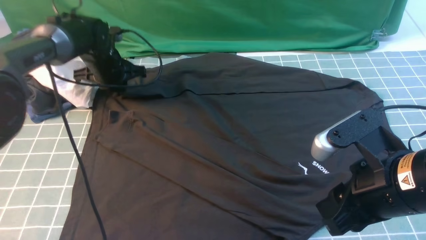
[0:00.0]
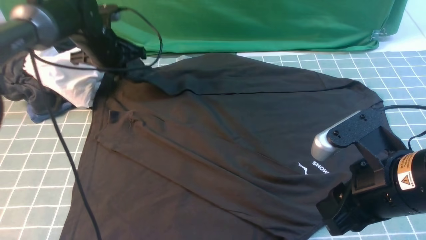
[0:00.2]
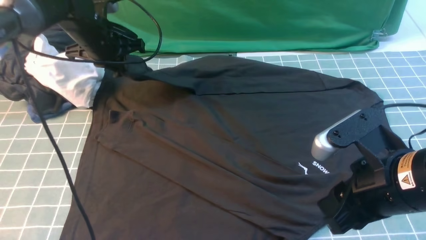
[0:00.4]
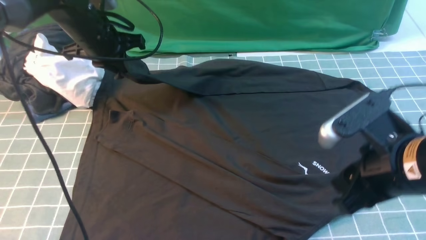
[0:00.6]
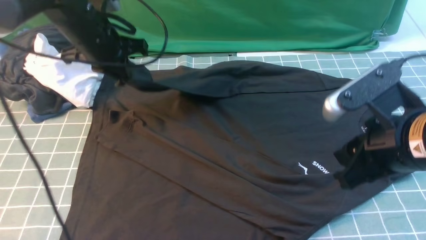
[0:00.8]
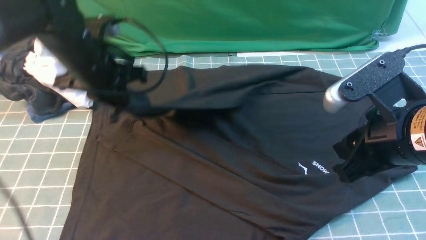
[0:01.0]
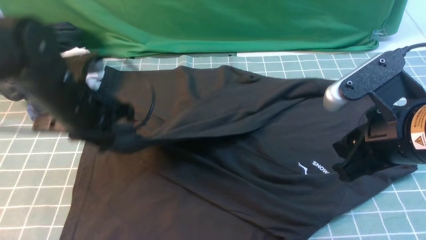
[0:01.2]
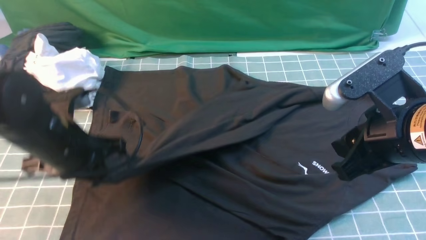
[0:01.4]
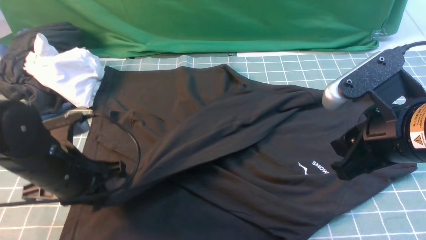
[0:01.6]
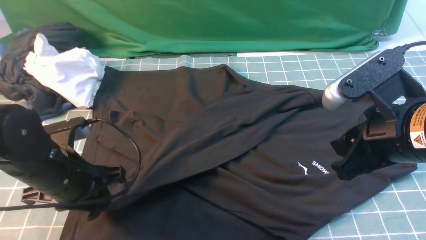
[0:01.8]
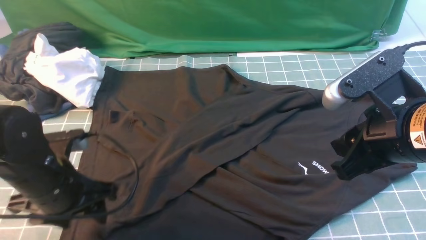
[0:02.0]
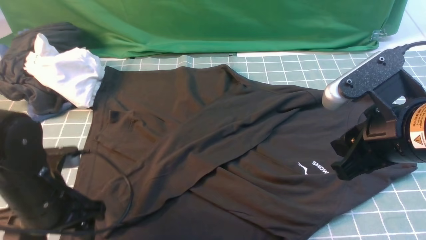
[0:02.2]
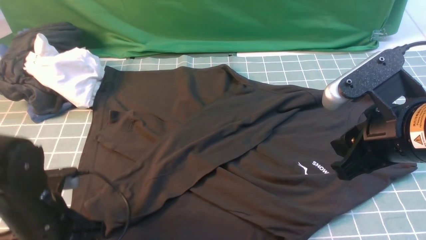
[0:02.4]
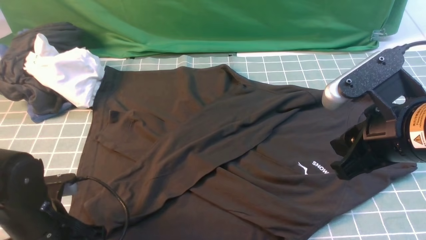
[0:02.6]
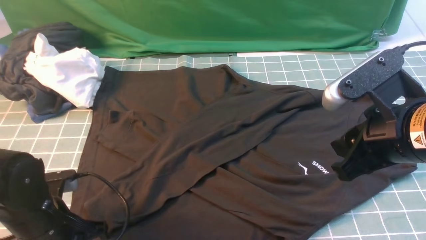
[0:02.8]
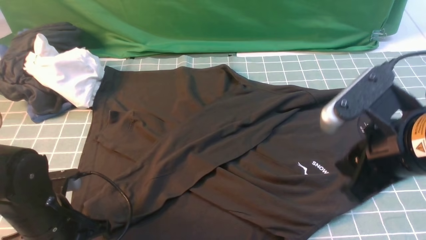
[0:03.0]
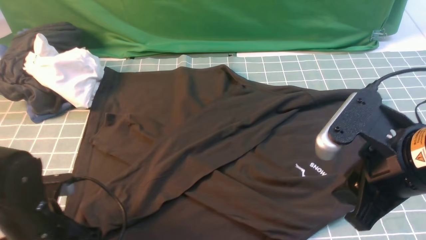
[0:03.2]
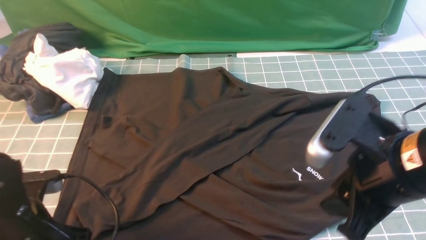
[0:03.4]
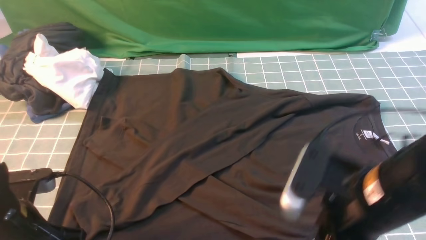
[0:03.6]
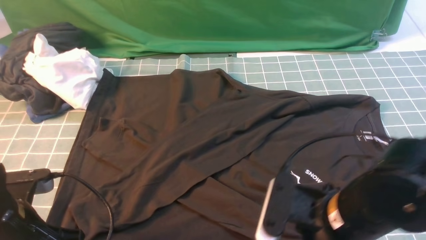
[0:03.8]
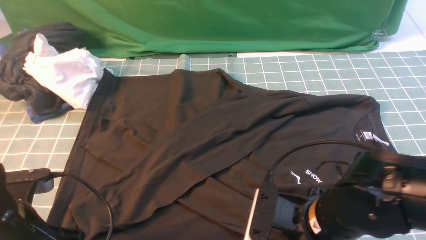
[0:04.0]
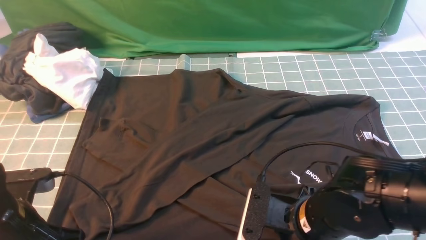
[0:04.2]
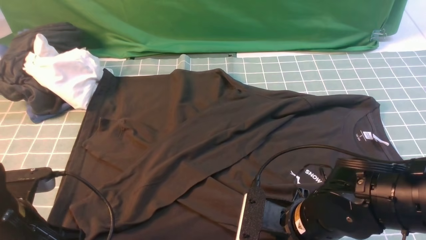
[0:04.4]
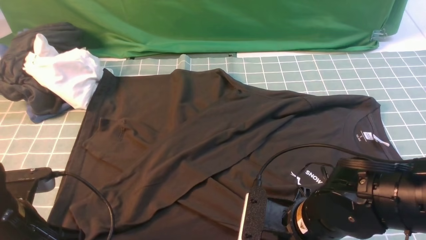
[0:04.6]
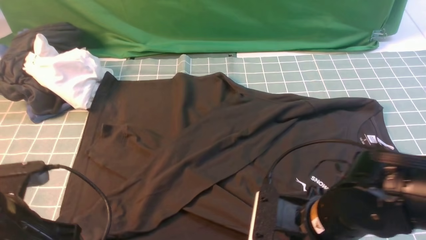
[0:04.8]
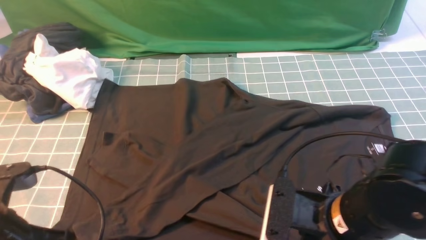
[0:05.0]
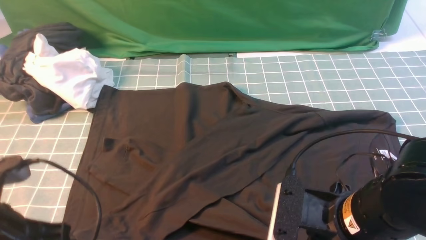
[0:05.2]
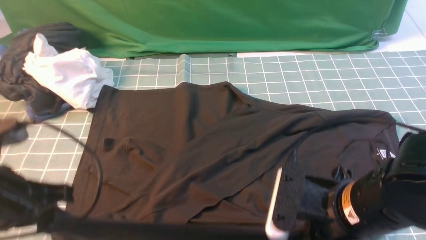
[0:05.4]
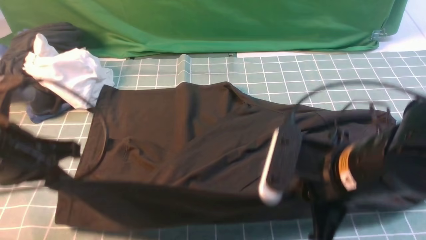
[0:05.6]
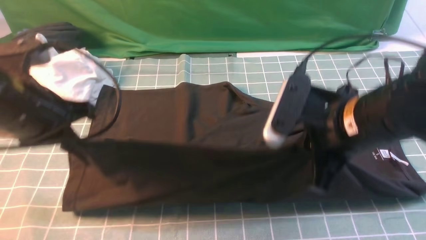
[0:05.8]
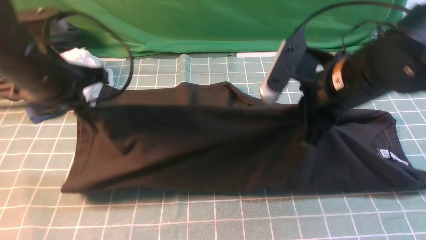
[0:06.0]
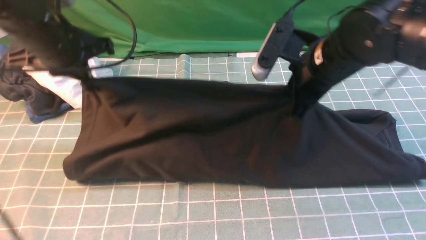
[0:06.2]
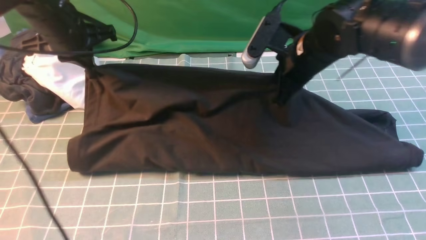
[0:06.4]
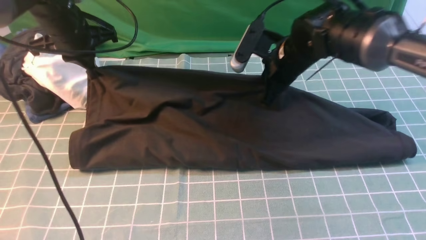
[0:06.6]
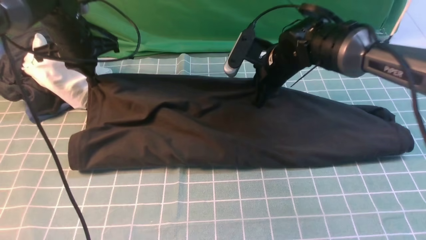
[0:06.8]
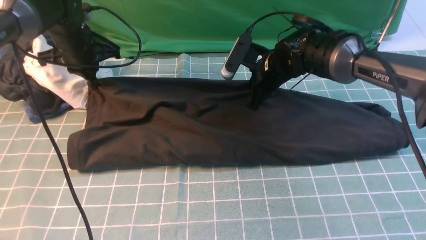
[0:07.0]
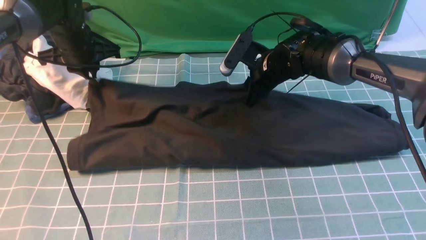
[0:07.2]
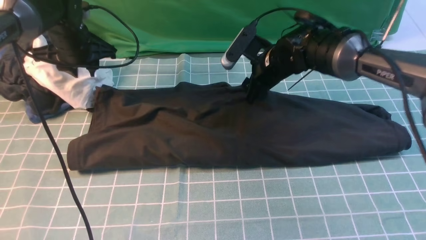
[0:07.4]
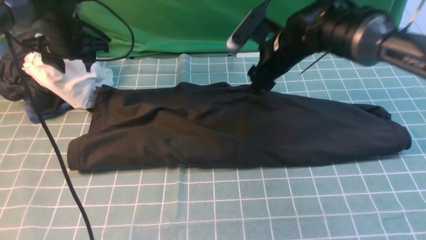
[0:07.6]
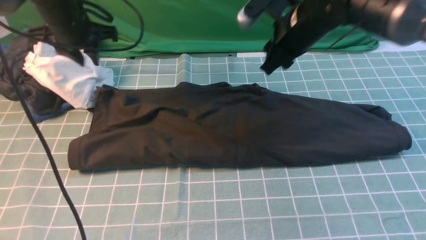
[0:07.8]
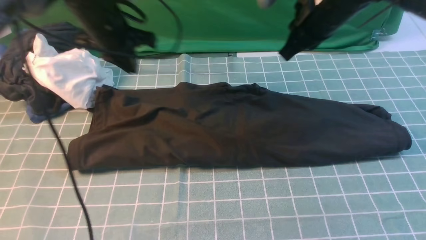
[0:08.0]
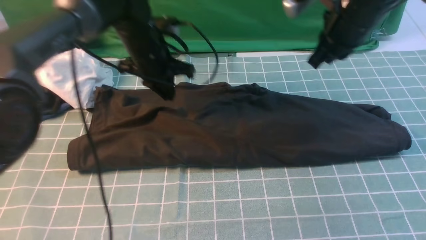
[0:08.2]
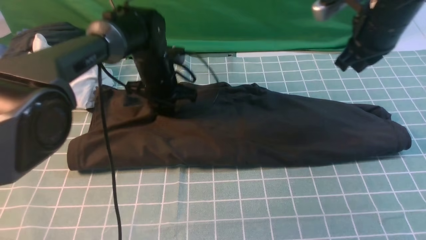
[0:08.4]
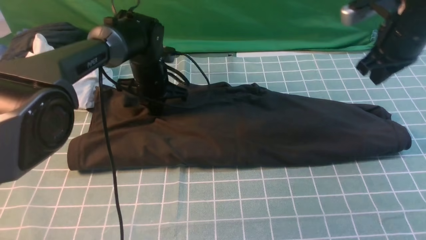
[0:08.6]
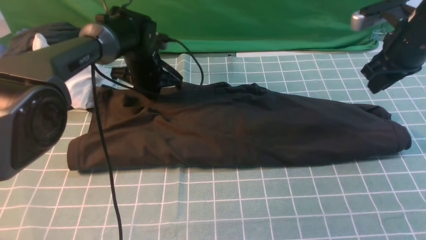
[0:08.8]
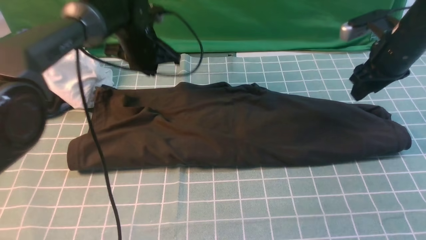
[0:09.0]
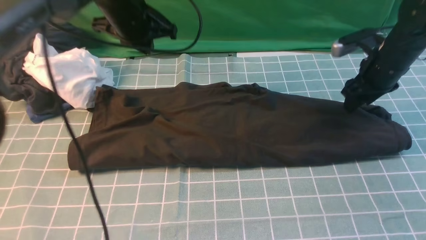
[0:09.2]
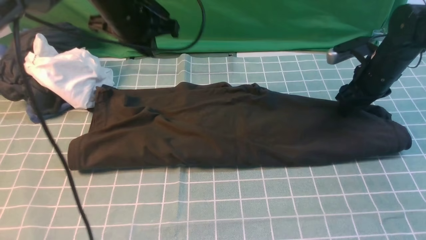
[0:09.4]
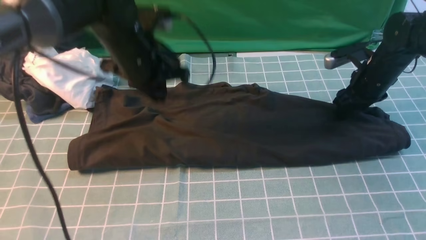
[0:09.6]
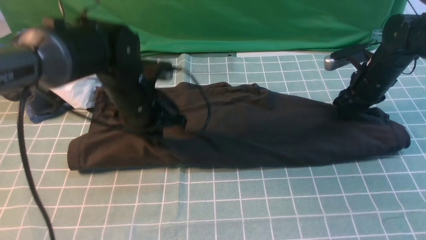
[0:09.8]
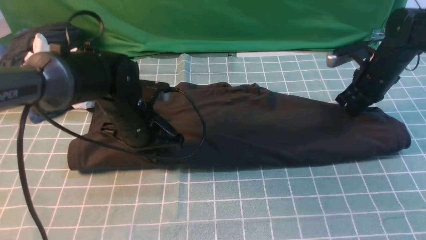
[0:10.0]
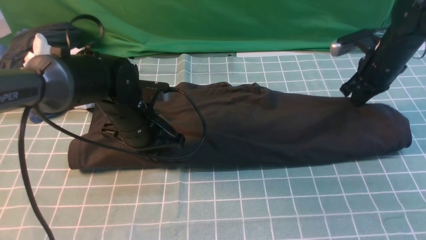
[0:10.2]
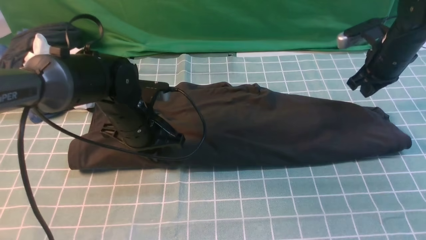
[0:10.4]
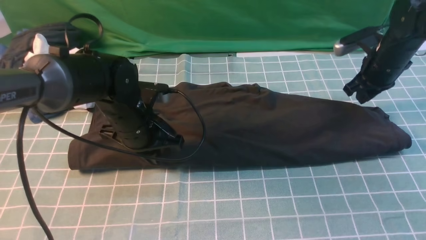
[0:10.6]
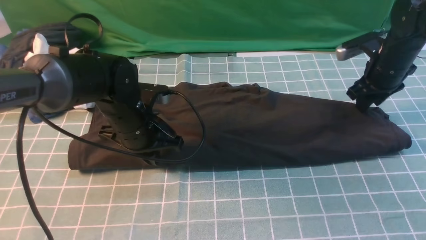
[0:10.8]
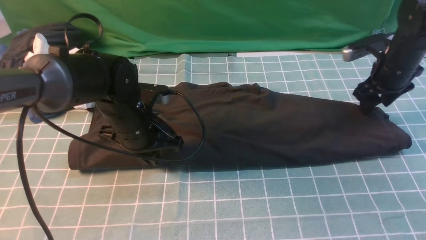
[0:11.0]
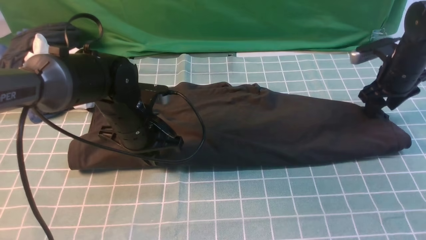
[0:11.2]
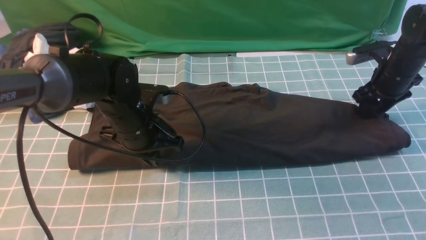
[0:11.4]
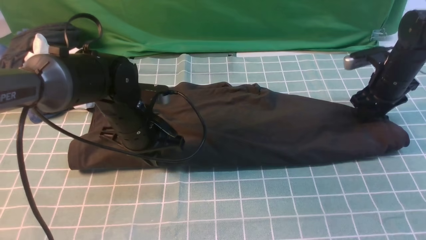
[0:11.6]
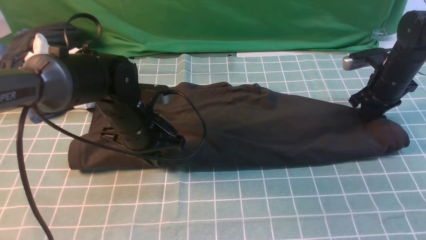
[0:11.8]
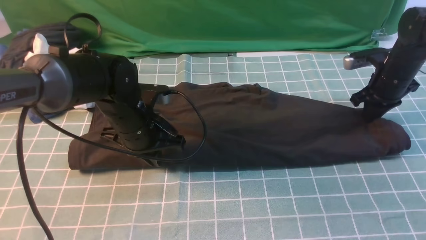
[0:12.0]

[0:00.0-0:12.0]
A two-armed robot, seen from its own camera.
Step, 0:00.0 to 0:02.4: use the left arm to drag and drop the cuff onto the cuff closest to the left arm.
Step, 0:02.6 to 0:04.6: use both arms simultaneously to clamp the lower edge of the clothing fabric.
Step, 0:04.8 to 0:07.2: use both arms to drag the lower edge of the fabric forward and fold it over the upper edge.
0:00.0 to 0:01.6: The left gripper shifts about 25 cm backward.
0:01.6 to 0:03.0: The left gripper heads backward, covering about 5 cm, and opens, then closes again.
0:03.0 to 0:04.4: The right gripper shifts approximately 15 cm downward and to the left; the left gripper moves some 5 cm.
0:04.4 to 0:06.0: The left gripper goes about 20 cm forward and upward. Meanwhile the right gripper heads upward and forward, covering approximately 20 cm, and closes.
0:06.0 to 0:07.6: The grippers both shift forward by some 15 cm. The right gripper opens up. The left gripper opens up.
0:07.6 to 0:09.0: The left gripper heads to the right, covering approximately 10 cm, and closes, while the right gripper heads to the right, covering roughly 15 cm, and closes, then reopens.
0:09.0 to 0:10.4: The right gripper closes up, while the left gripper shifts about 15 cm backward and downward.
0:10.4 to 0:12.0: The right gripper opens, then closes again.

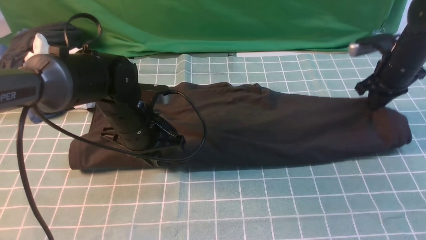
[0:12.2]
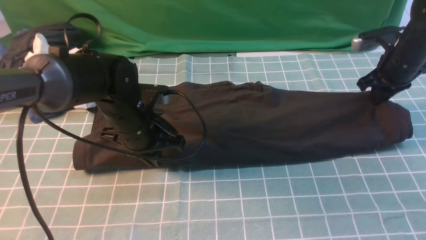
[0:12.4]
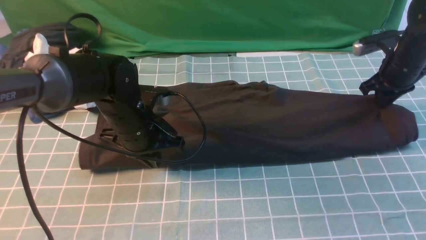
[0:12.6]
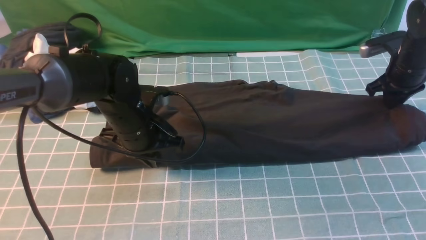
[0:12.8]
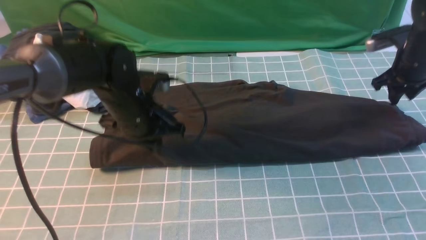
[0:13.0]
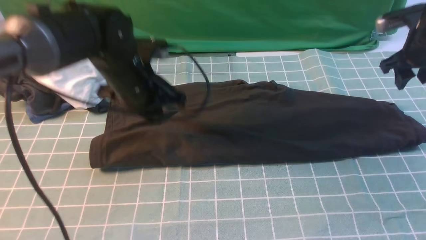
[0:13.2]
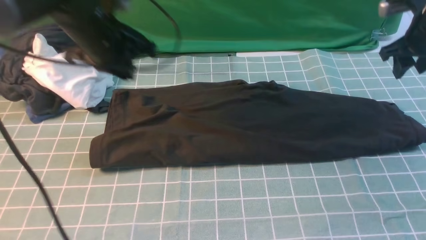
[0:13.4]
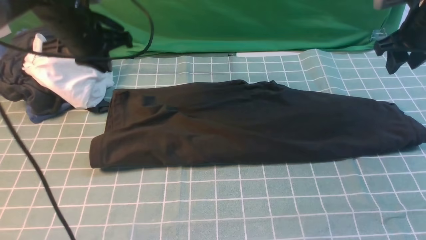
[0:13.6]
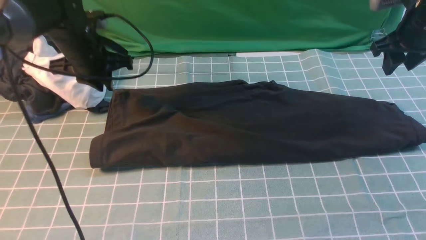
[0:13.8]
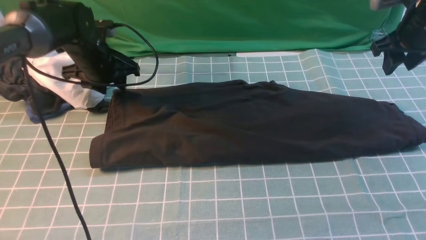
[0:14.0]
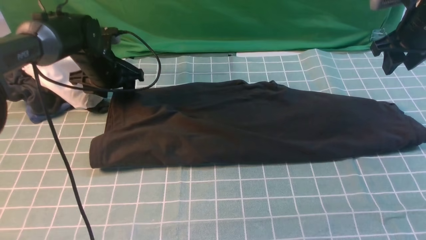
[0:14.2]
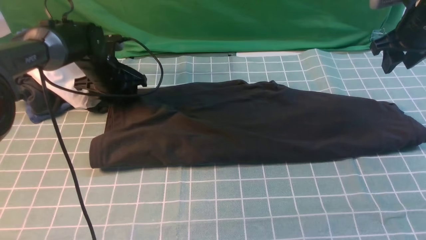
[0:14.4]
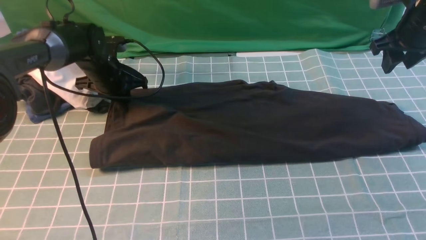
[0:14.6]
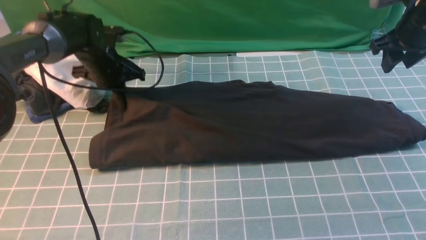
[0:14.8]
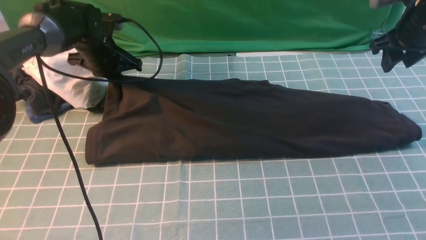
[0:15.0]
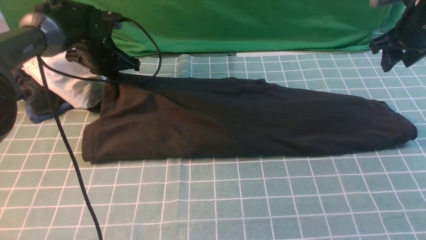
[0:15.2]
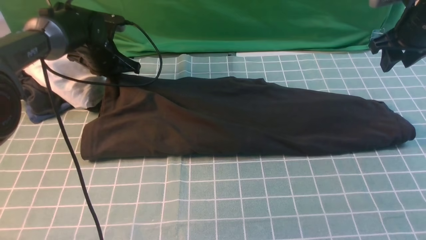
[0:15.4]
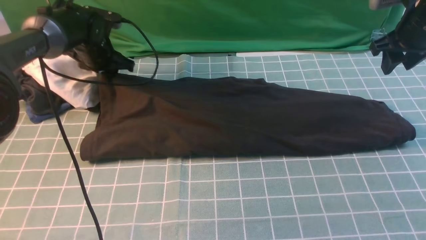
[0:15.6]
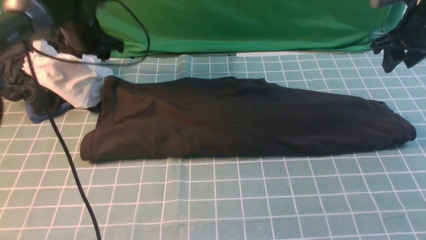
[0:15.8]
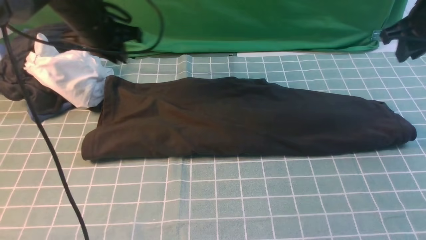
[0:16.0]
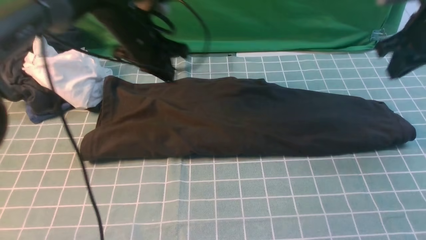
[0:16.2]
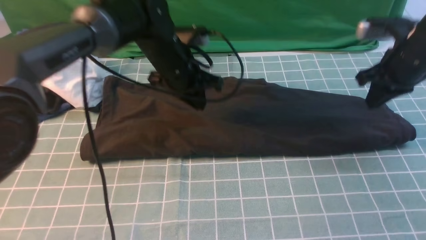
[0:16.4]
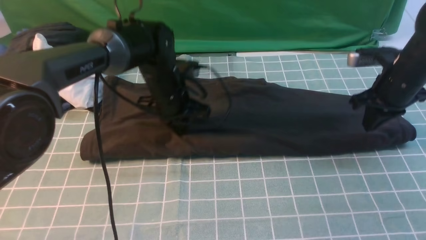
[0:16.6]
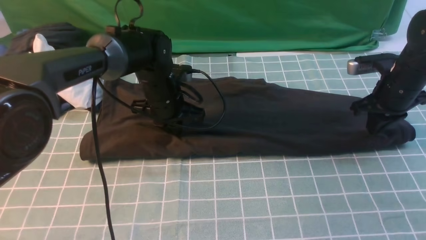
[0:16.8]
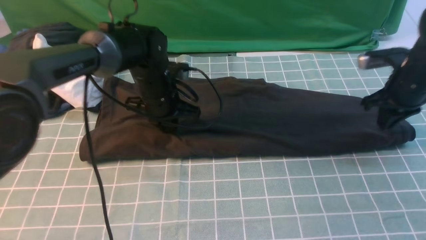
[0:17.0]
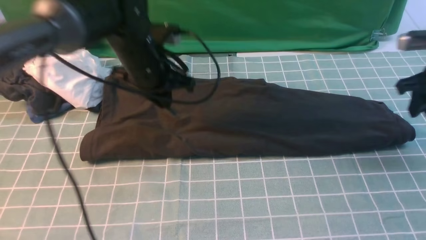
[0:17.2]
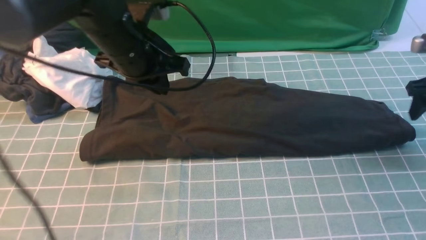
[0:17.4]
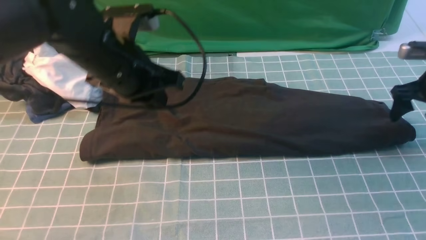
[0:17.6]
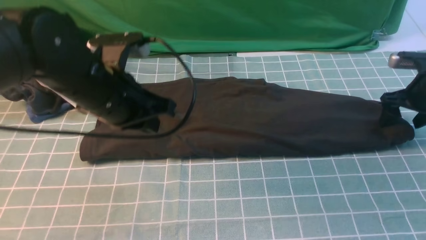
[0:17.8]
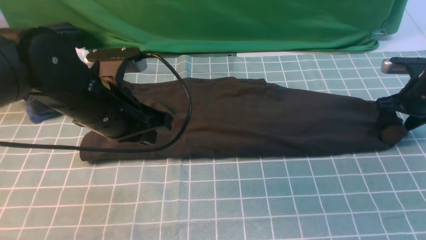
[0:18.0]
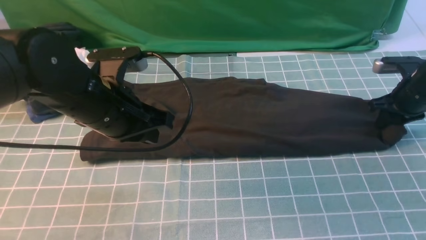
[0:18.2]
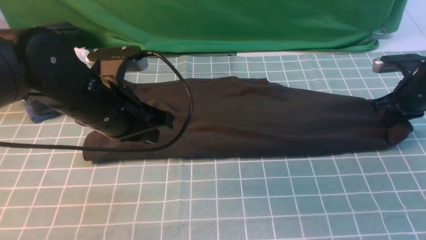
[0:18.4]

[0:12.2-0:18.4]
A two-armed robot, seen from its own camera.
Step, 0:12.2 to 0:18.4: use the right arm to clamp the right edge of the fabric.
0:12.2 to 0:13.8: The right gripper moves upward, approximately 10 cm, and opens its fingers, while the left gripper shifts roughly 15 cm forward and to the left.
0:13.8 to 0:15.4: The left gripper heads forward, covering about 5 cm, and opens and closes again.
0:15.4 to 0:16.8: The right gripper heads downward, covering about 10 cm, and closes up. The left gripper shifts roughly 15 cm to the right and backward.
0:16.8 to 0:18.4: The left gripper moves backward and upward, some 20 cm, while the right gripper shifts about 5 cm to the right, and opens, then closes again.
